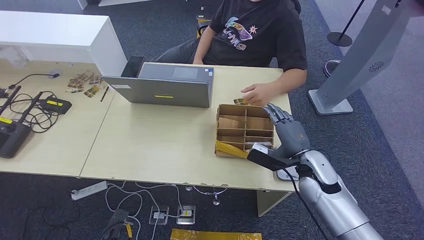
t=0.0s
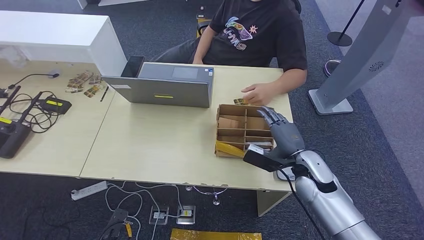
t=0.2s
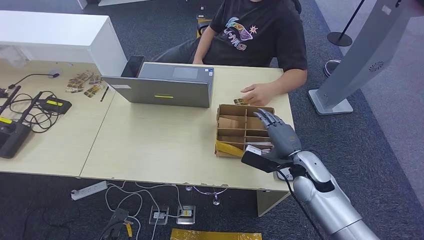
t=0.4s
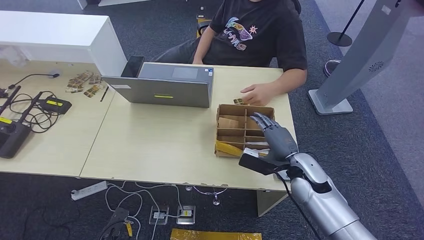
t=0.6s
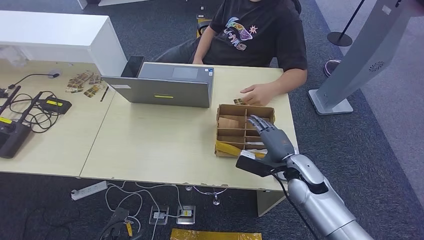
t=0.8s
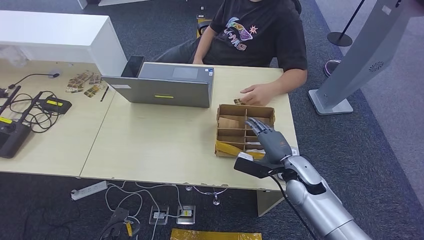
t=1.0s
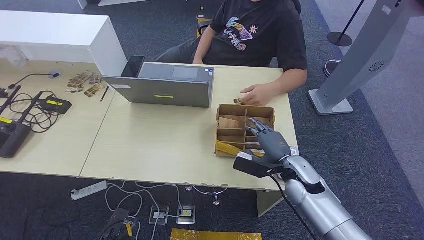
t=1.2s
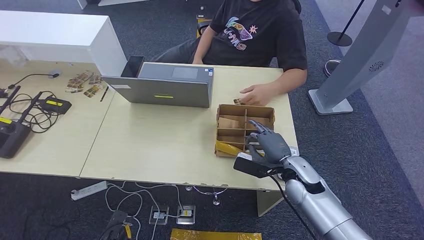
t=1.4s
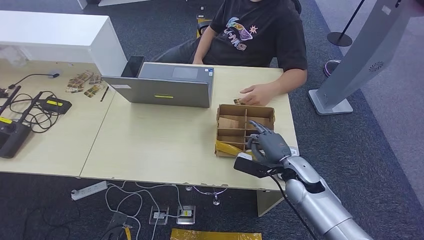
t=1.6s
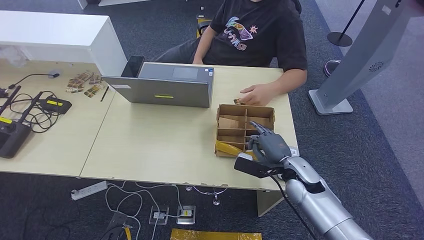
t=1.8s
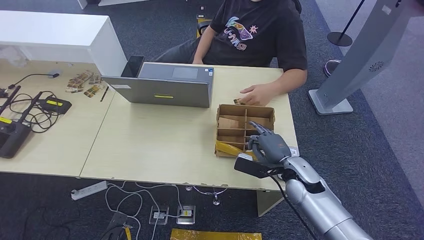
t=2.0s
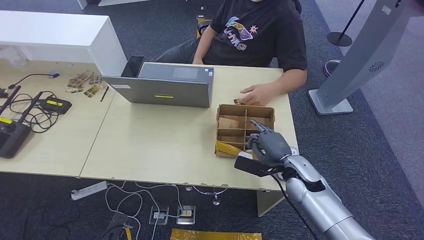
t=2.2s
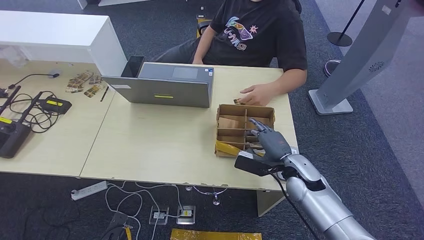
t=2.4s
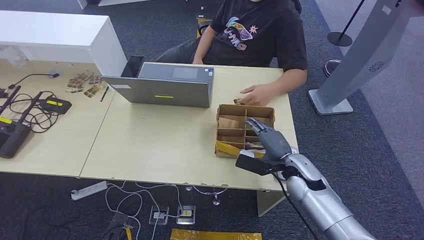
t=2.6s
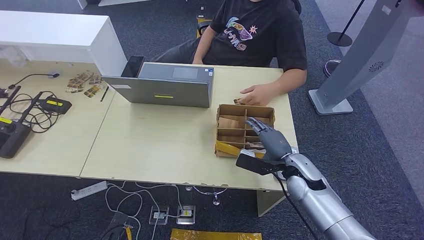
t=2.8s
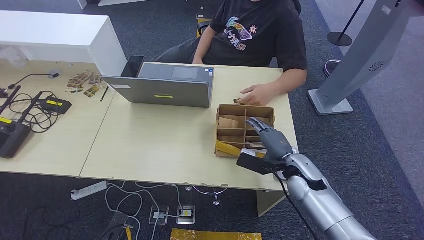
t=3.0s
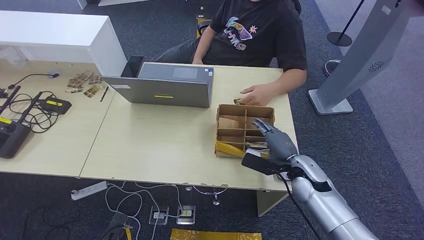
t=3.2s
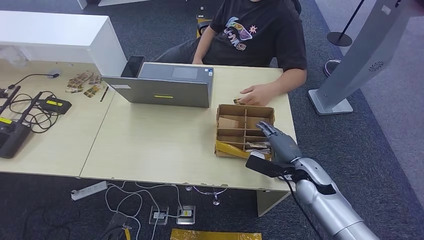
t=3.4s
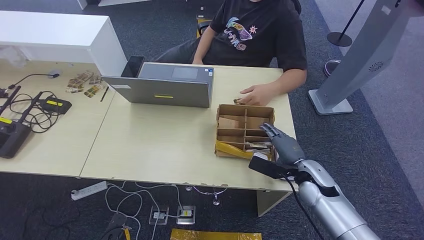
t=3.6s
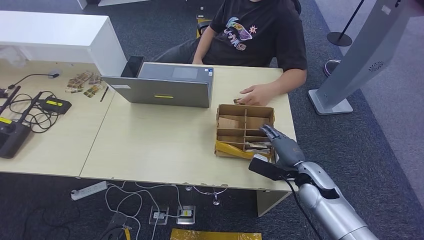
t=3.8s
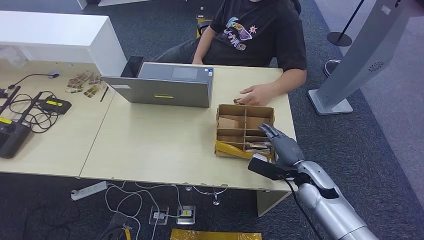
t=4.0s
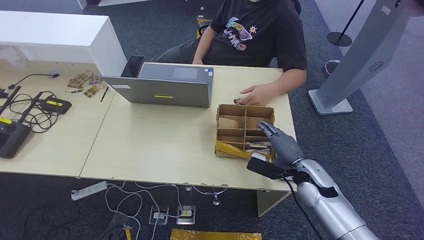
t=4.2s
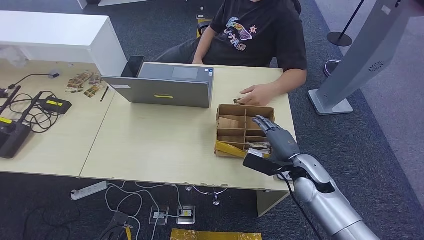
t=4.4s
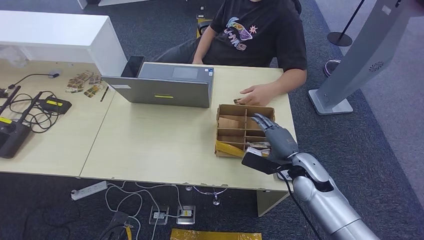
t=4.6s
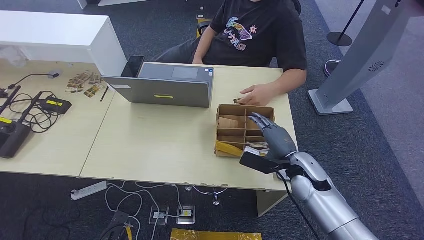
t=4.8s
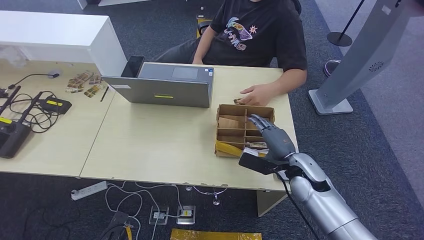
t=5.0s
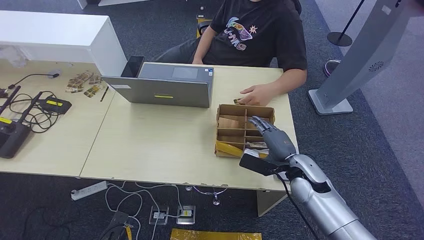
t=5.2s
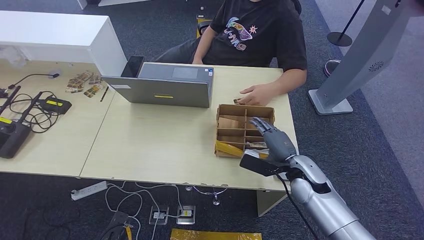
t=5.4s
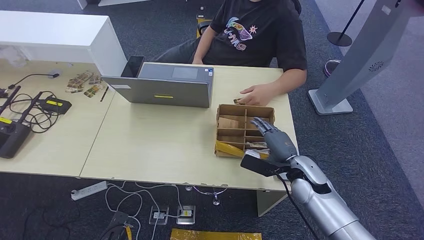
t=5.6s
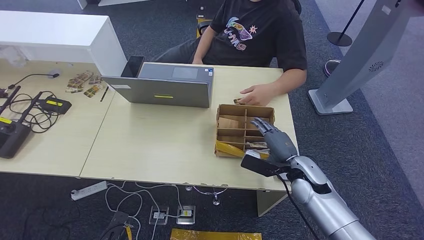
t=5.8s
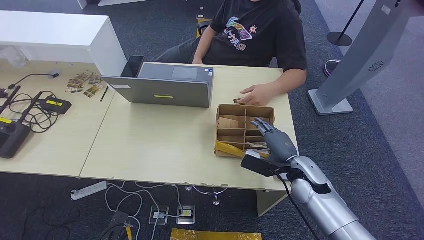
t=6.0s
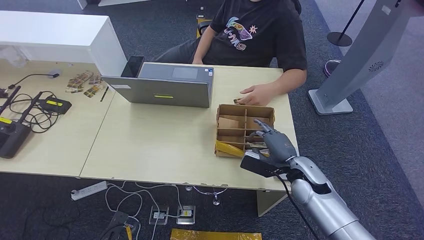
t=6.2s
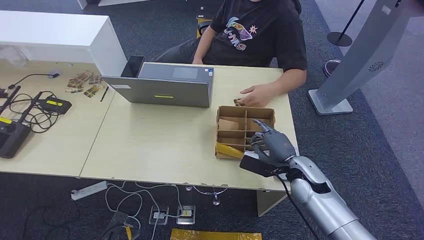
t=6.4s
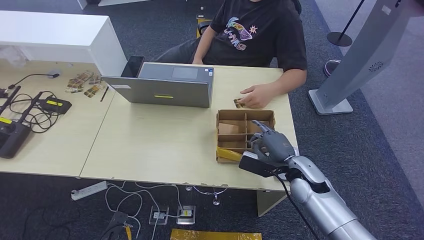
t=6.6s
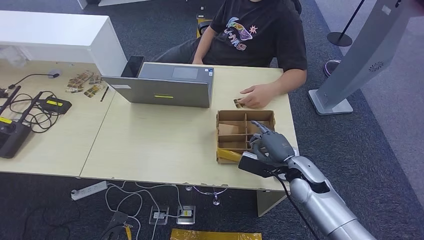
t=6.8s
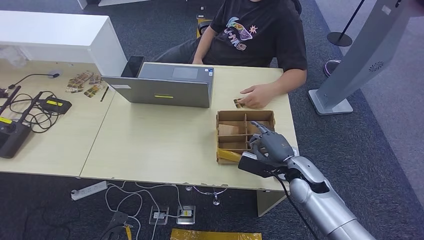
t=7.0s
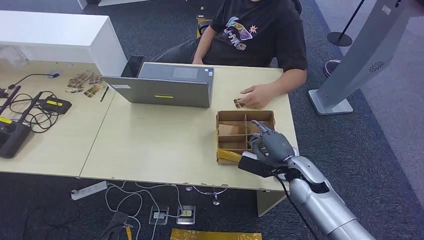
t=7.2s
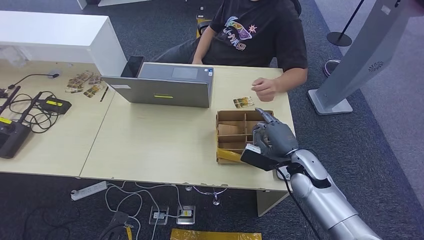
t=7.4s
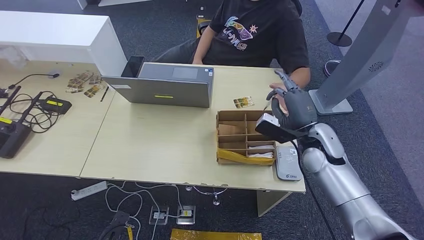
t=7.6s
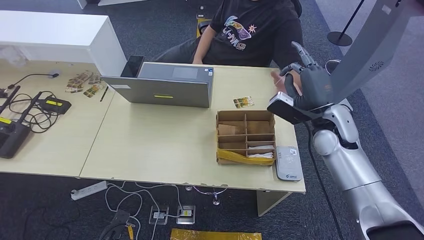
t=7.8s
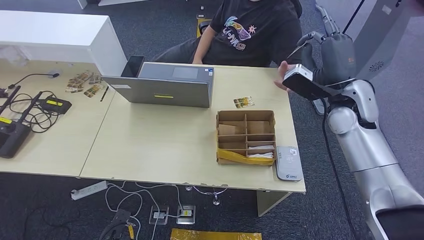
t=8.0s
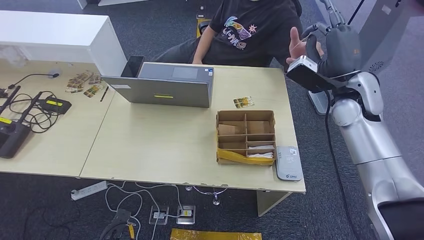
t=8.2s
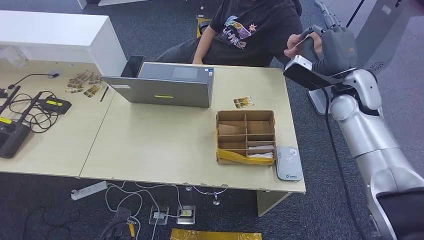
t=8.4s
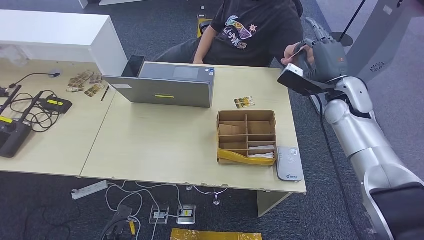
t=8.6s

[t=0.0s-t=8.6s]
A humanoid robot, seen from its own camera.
Step, t=3.0s to t=7.8s: Pick up the room key from the key card box.
Step, t=8.0s to t=8.6s: Hand the room key to the person.
t=0.0s to t=1.4s: The hands stay close to where they were, moving slightly.
t=1.4s to t=2.8s: Both hands stay about where they are.
t=2.8s to t=4.4s: The hands stay close to where they were, moving slightly.
t=4.4s to t=5.8s: The two hands keep their place.
t=5.8s to t=7.2s: The two hands keep their place.
t=7.2s to t=8.6s: The right hand travels upward, forward and to the right by about 20 cm.

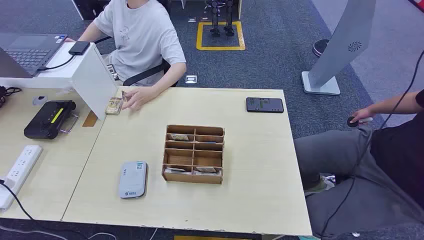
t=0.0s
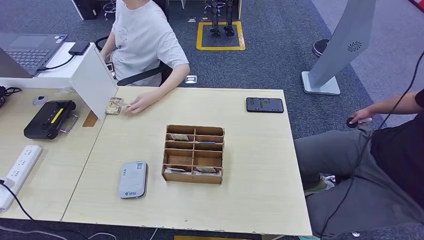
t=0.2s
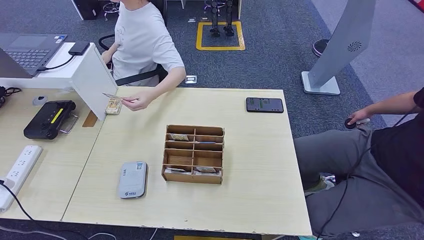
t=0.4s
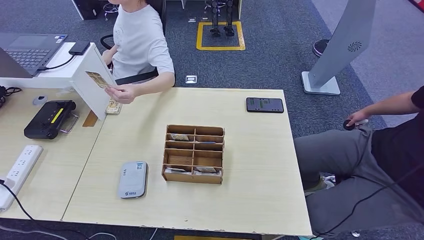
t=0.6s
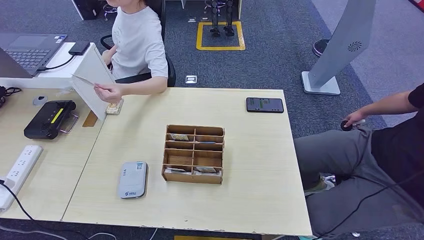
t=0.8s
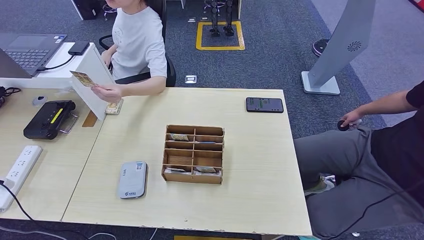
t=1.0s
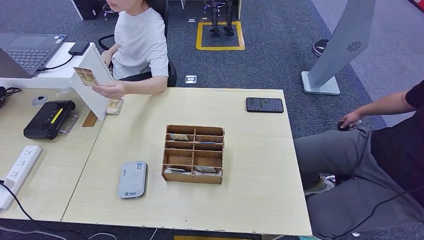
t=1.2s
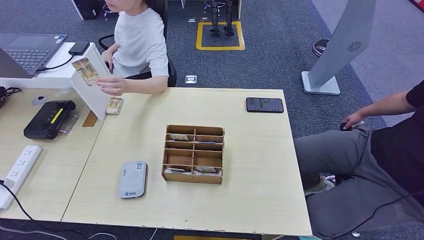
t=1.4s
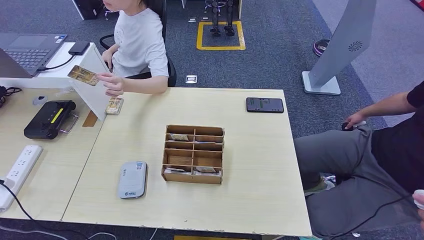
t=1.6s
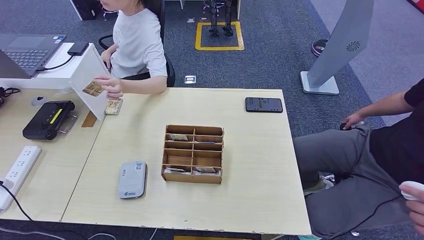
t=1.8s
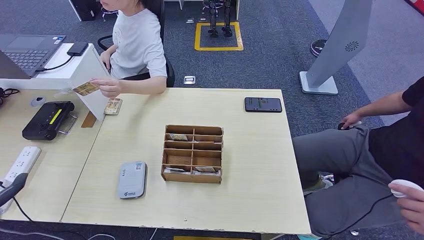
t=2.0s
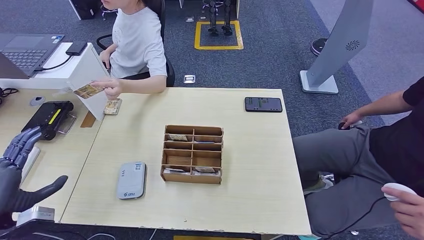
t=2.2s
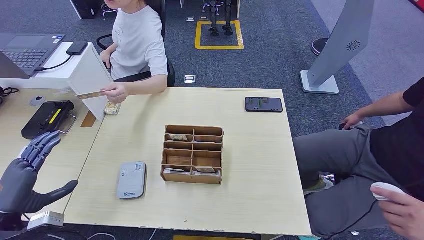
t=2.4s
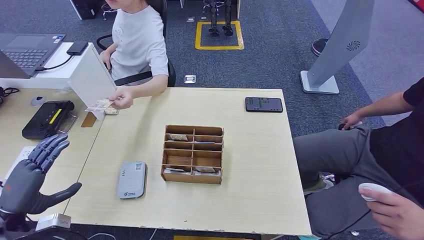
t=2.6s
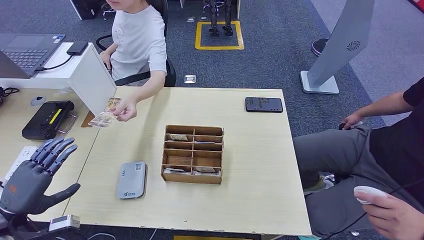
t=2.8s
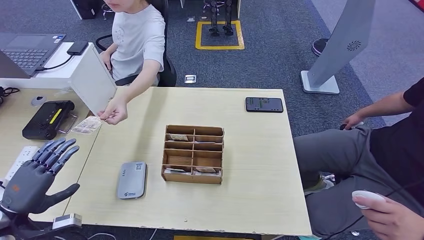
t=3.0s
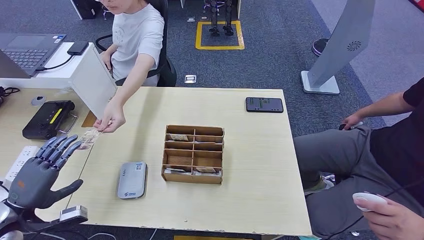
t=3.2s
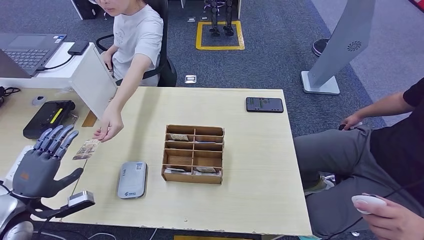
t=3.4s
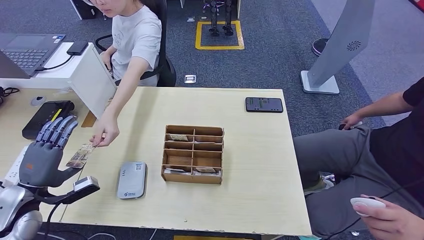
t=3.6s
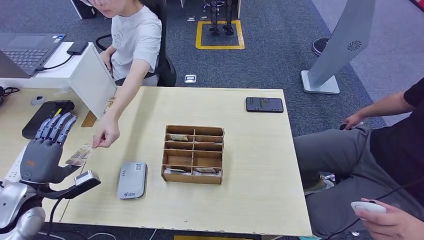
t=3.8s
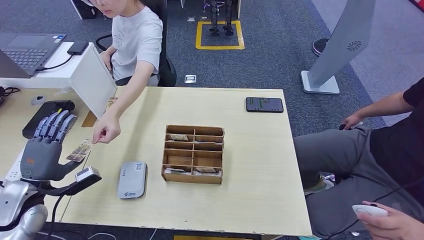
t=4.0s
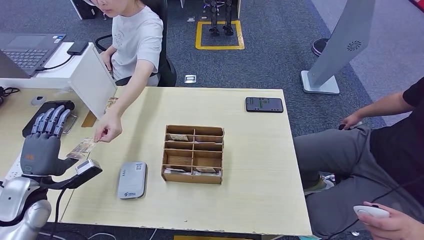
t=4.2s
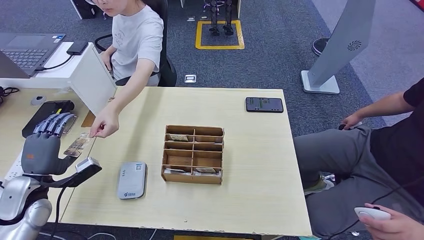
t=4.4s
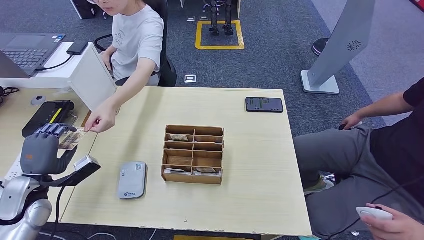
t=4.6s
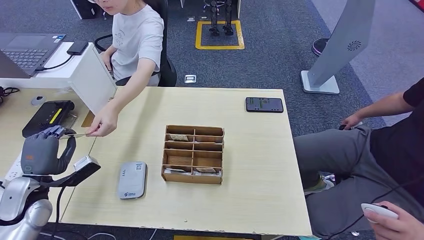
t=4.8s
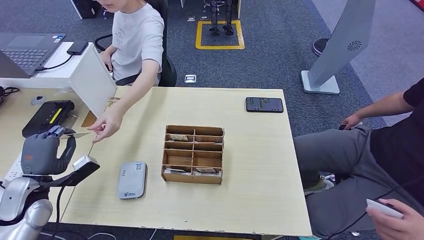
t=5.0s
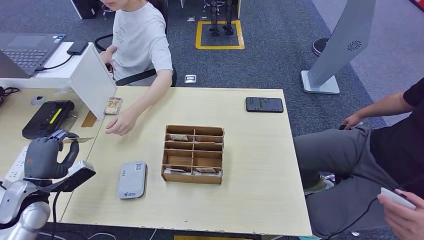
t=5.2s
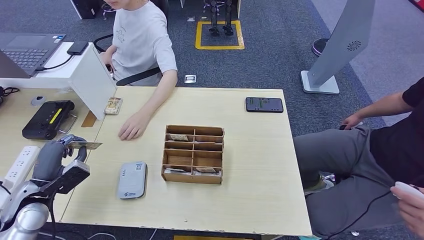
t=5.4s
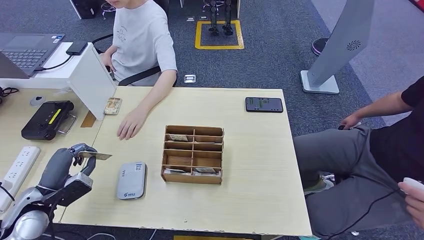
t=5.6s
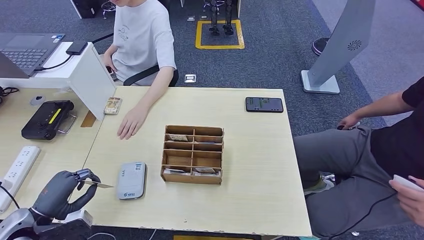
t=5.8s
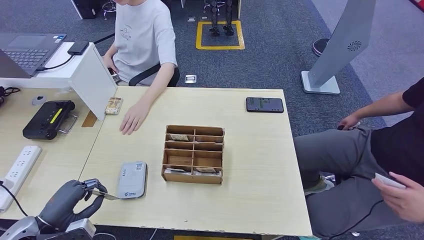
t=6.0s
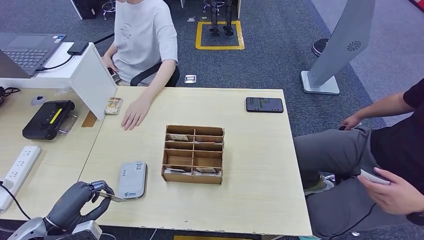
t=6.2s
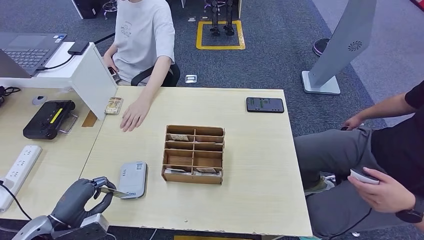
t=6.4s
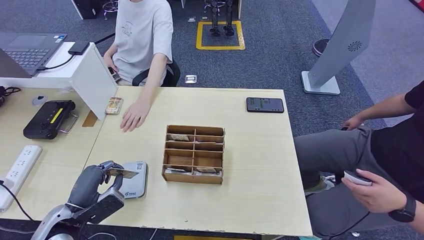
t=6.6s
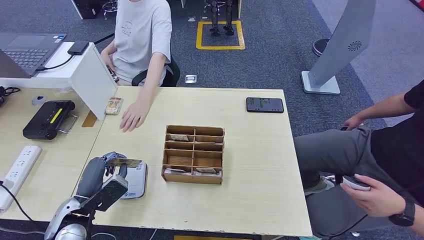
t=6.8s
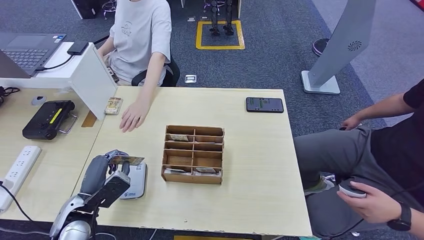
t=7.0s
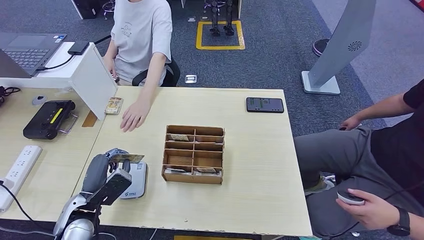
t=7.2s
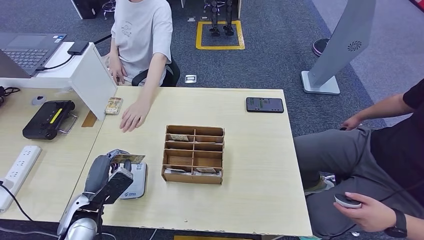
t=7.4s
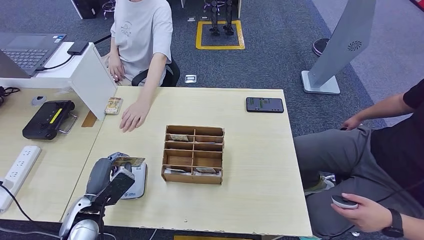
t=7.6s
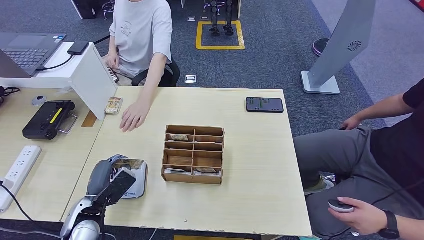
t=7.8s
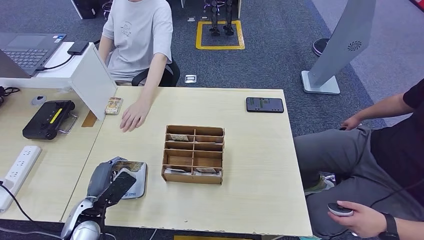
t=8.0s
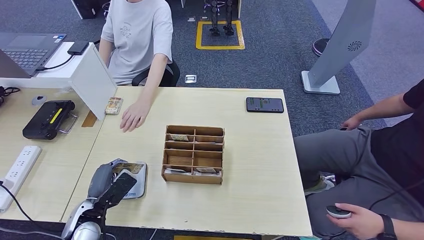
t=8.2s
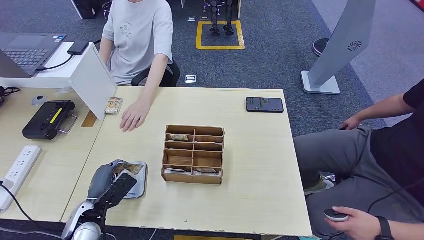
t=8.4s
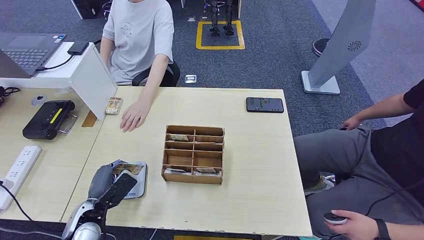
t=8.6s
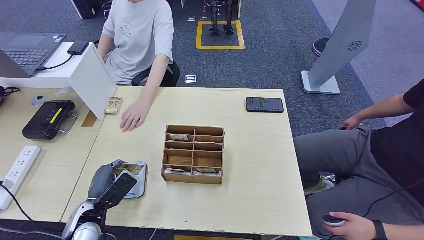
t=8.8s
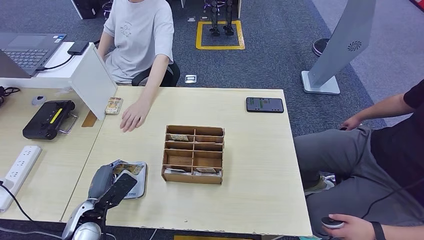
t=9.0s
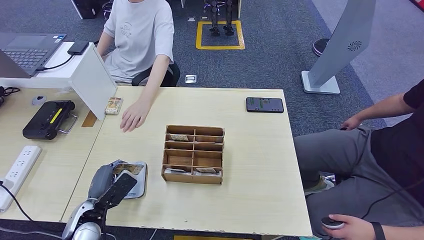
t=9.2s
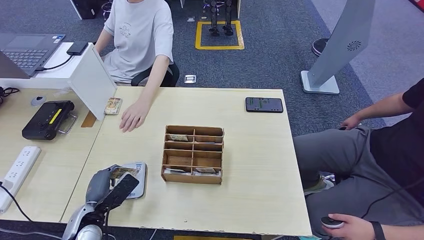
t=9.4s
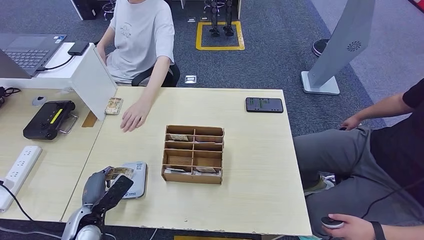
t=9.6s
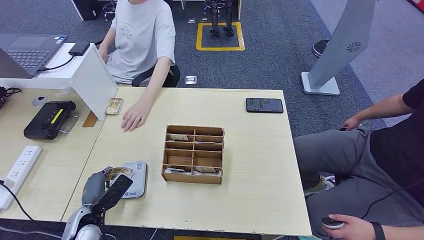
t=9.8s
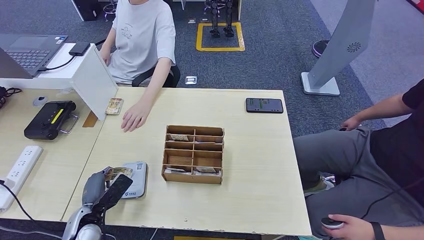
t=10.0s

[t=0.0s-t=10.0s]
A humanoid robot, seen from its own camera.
Step, t=0.0s to t=5.4s: Take the ID card from the person's hand.
t=1.4s to t=2.8s: The left hand is displaced forward by some 20 cm.
t=2.8s to t=4.2s: The left hand travels forward by about 10 cm.
t=4.2s to t=5.8s: The left hand moves backward, some 5 cm.
t=5.8s to t=7.2s: The left hand shifts roughly 10 cm to the right.
t=7.2s to t=8.6s: There are only small adjustments of the hands.
t=8.6s to t=10.0s: The left hand ends up roughly 5 cm from where it was.
